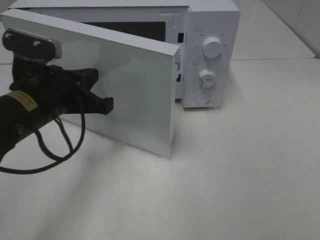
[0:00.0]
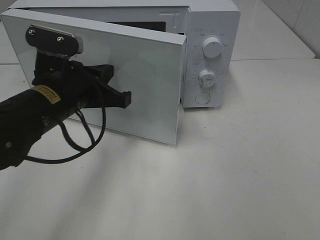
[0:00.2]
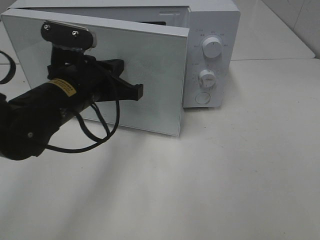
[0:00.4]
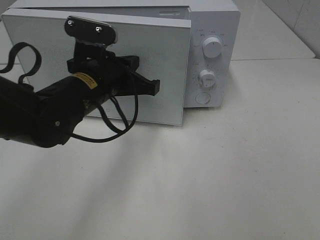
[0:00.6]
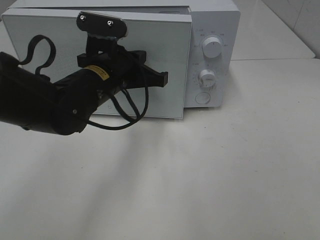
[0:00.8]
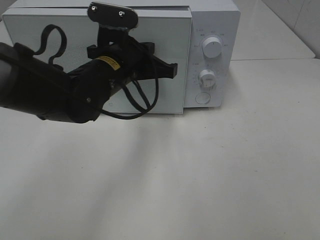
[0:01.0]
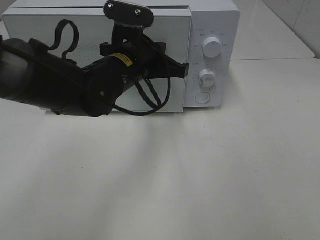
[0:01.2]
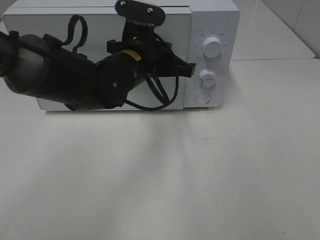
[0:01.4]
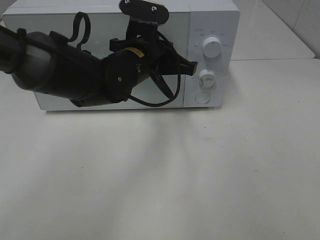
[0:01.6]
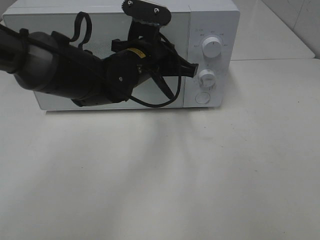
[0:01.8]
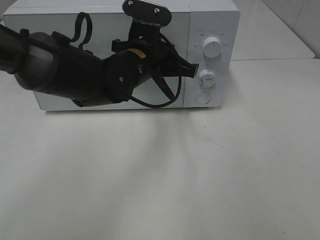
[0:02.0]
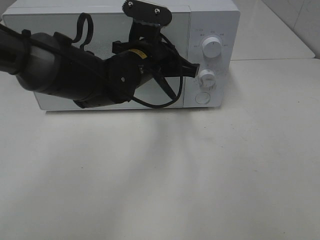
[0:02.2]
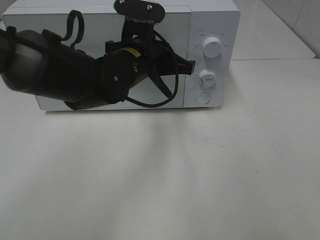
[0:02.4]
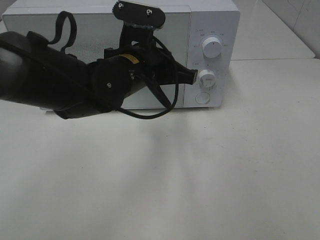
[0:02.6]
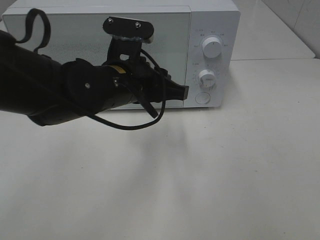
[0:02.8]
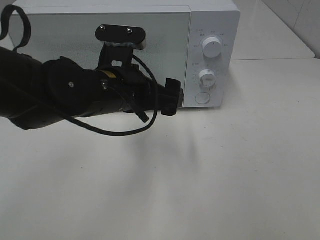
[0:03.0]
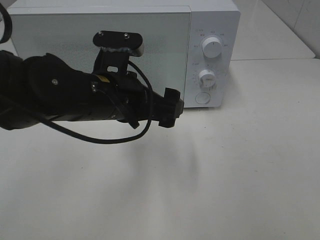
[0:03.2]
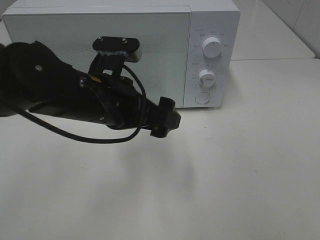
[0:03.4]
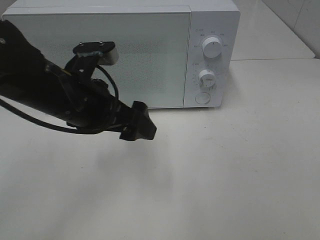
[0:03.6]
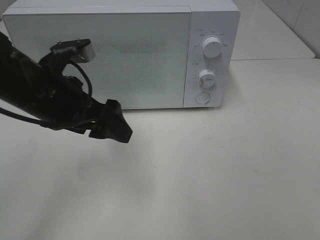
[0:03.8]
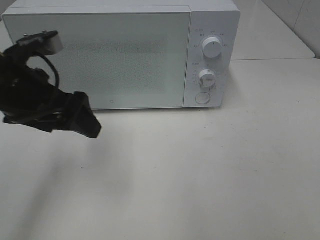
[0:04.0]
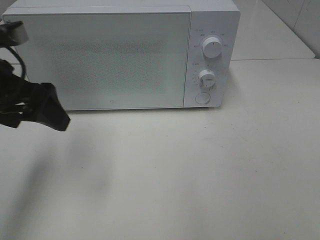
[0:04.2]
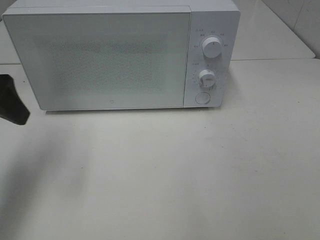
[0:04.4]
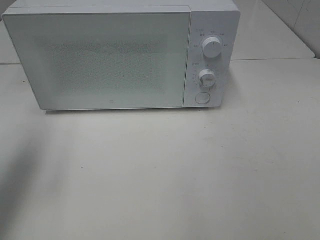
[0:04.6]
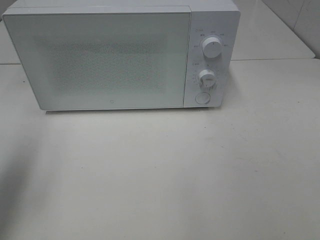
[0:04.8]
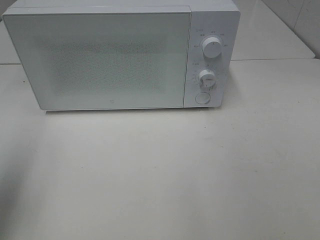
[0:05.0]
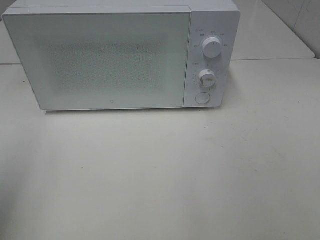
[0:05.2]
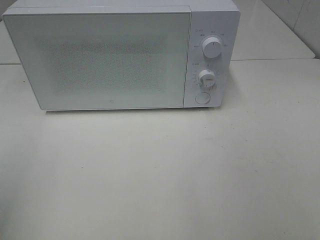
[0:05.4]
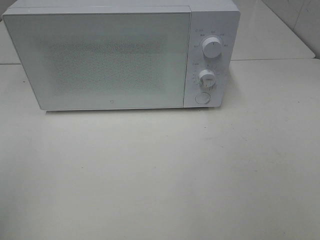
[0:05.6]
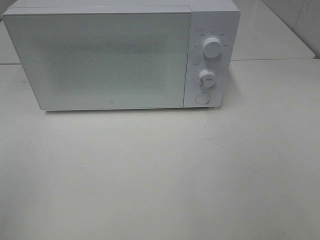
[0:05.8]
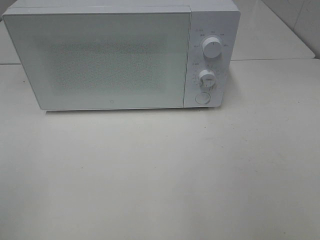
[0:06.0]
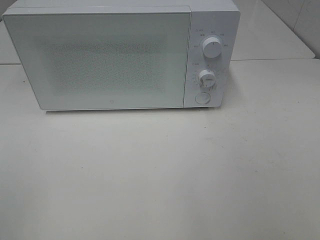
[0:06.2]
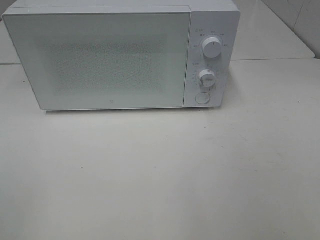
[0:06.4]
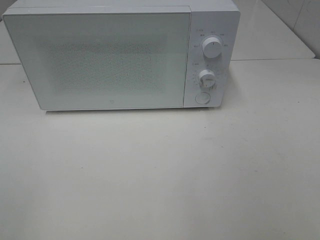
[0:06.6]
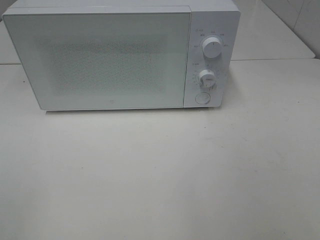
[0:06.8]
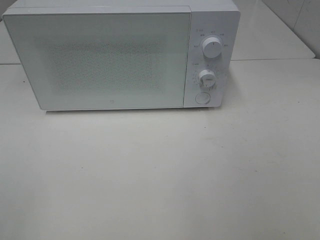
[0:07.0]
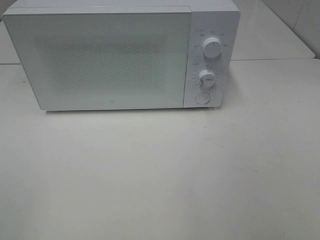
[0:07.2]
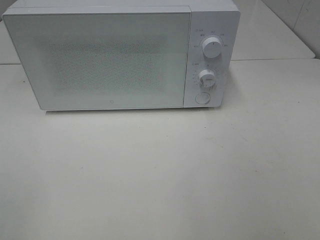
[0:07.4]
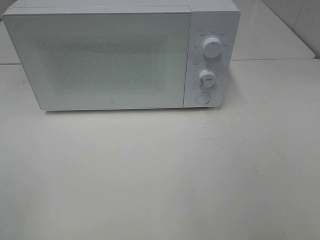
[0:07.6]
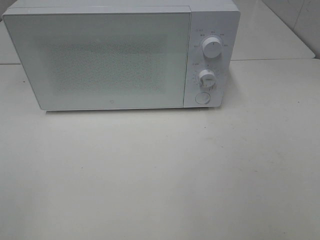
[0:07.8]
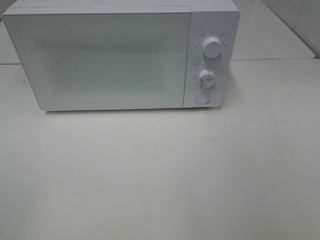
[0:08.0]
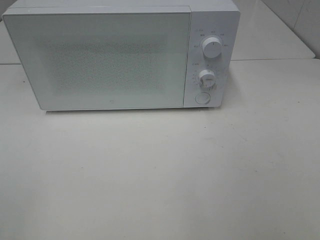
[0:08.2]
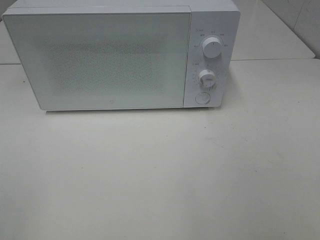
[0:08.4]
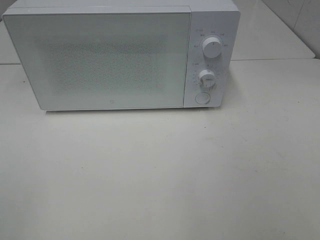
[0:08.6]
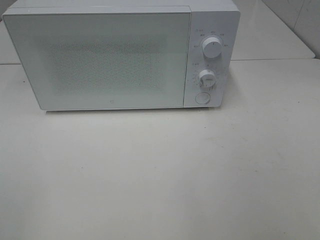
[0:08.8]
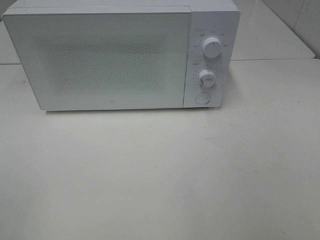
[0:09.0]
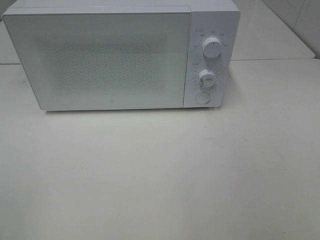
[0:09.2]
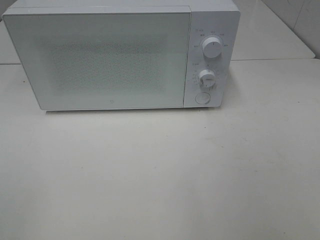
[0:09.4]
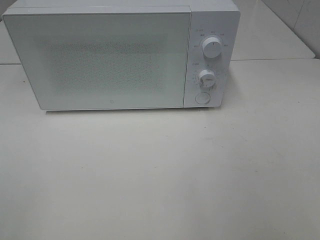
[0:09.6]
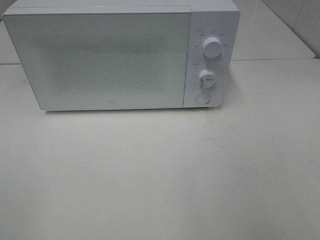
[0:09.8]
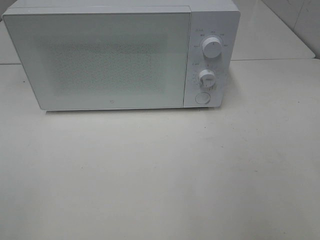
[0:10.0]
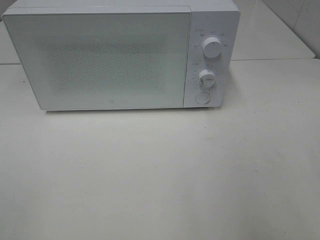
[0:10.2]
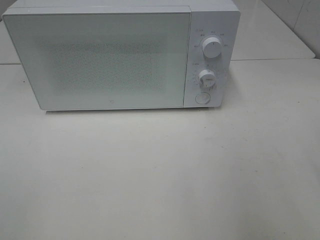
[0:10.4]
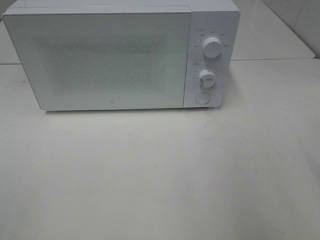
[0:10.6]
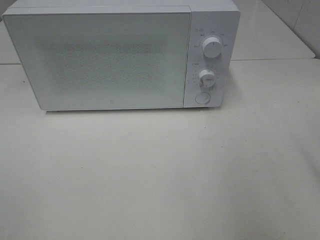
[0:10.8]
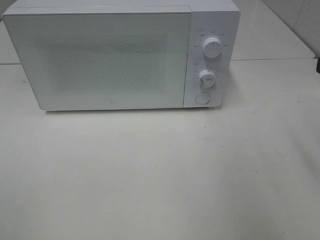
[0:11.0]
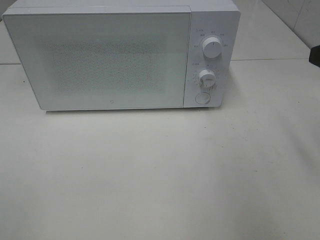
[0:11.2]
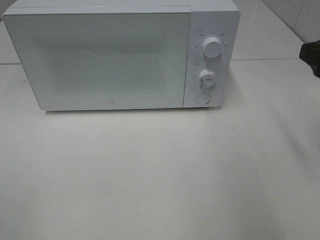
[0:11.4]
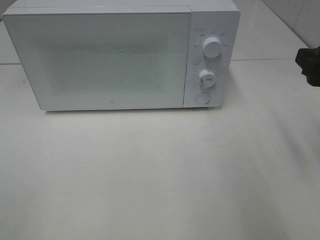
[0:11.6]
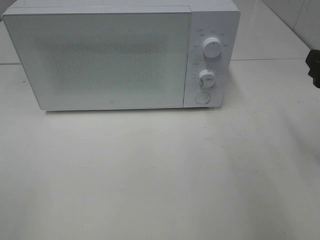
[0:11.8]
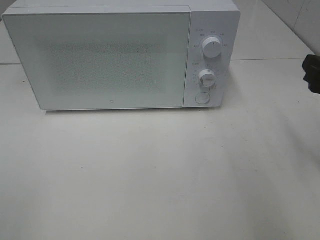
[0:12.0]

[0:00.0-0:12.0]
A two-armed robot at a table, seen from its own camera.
Task of the whole recording: Heat Sandwich.
Step, 0:00.0 to 0:03.0: Left hand: close the microwave door.
0:00.0 to 0:01.6: The left gripper is displaced to the right and forward by some 15 cm.
0:01.6 to 0:03.0: The left gripper shifts roughly 10 cm backward, and opens up.
0:03.0 to 0:04.4: The left gripper moves to the left, some 20 cm.
0:04.4 to 0:06.0: The left gripper is displaced backward by about 20 cm.
0:07.6 to 0:09.0: Both grippers stay about where they are.
0:10.4 to 0:12.0: The right gripper travels forward and downward by some 10 cm.

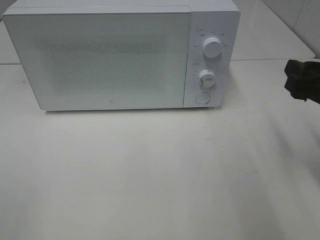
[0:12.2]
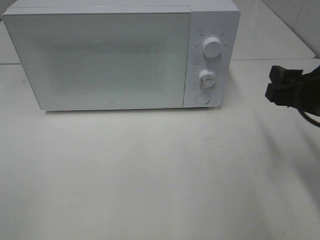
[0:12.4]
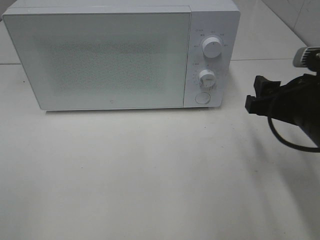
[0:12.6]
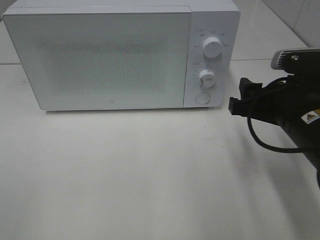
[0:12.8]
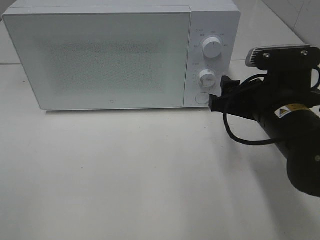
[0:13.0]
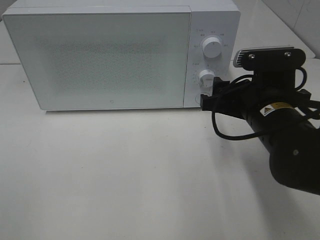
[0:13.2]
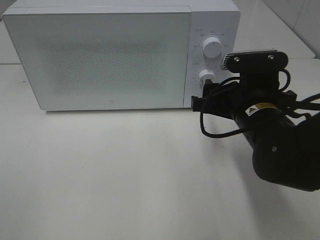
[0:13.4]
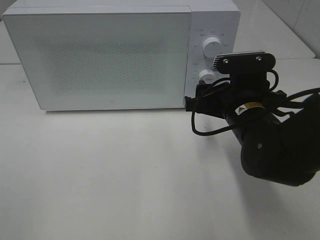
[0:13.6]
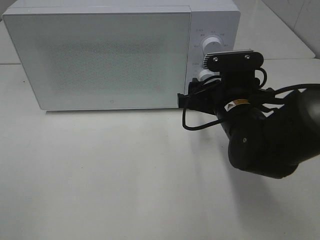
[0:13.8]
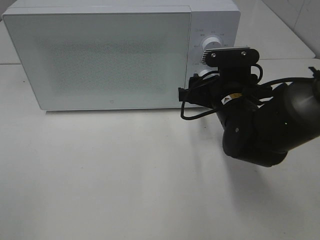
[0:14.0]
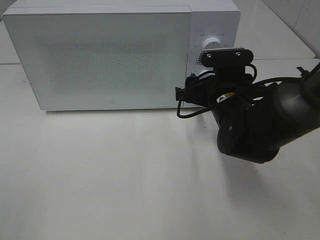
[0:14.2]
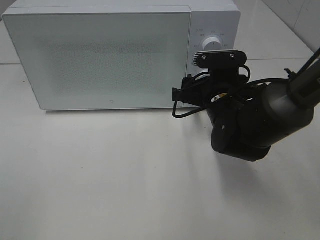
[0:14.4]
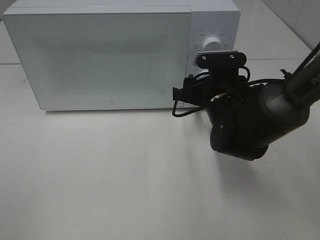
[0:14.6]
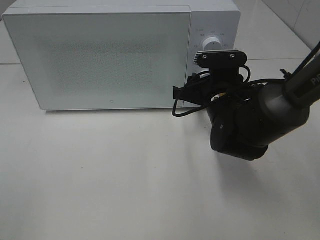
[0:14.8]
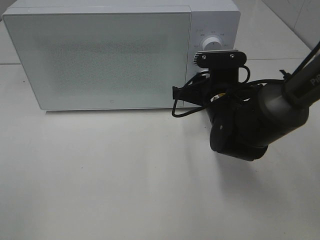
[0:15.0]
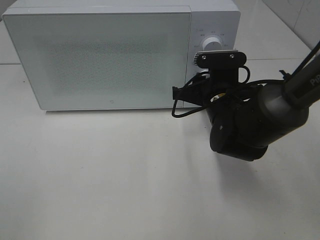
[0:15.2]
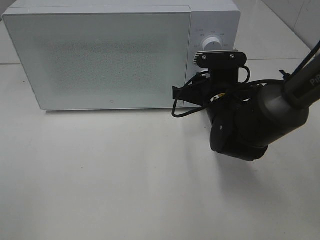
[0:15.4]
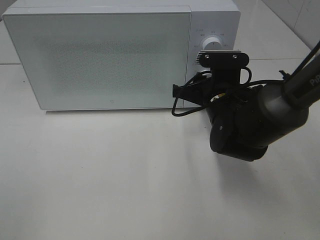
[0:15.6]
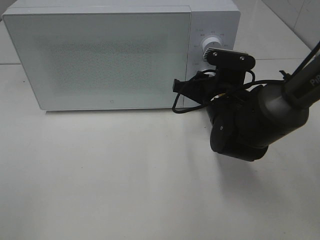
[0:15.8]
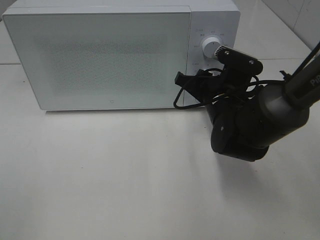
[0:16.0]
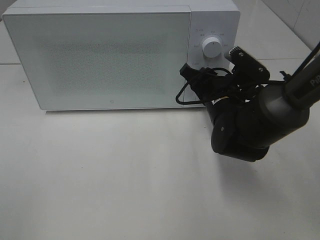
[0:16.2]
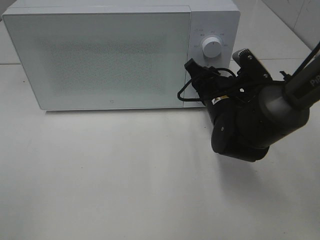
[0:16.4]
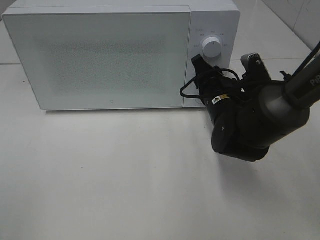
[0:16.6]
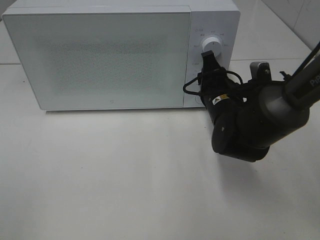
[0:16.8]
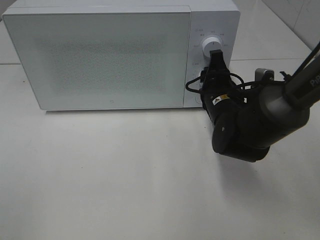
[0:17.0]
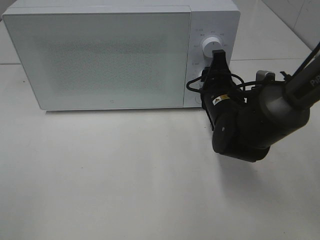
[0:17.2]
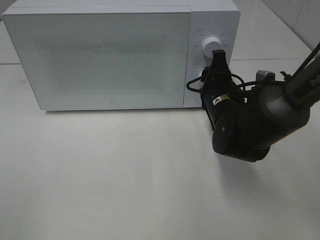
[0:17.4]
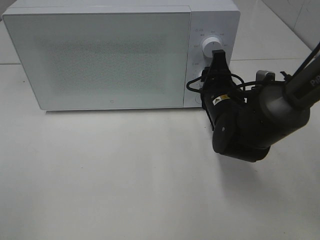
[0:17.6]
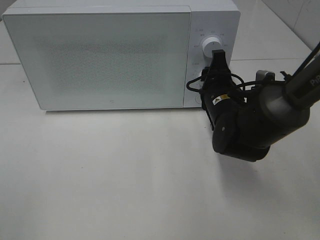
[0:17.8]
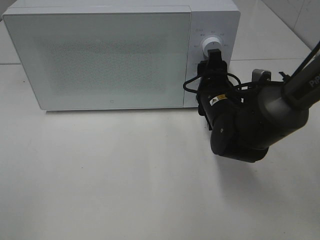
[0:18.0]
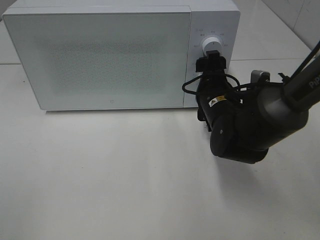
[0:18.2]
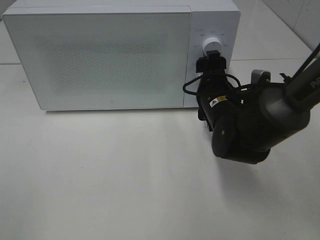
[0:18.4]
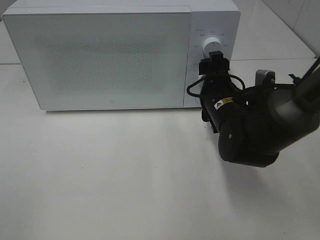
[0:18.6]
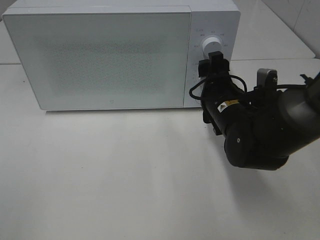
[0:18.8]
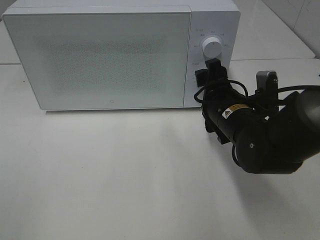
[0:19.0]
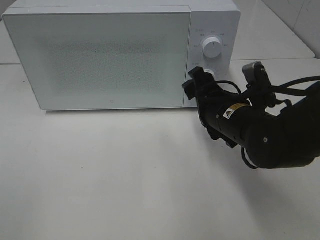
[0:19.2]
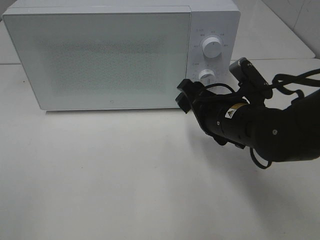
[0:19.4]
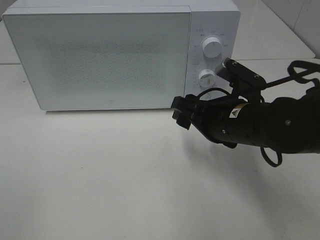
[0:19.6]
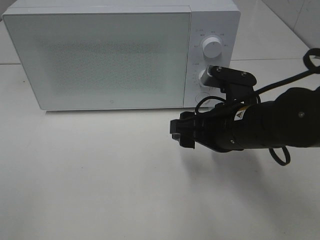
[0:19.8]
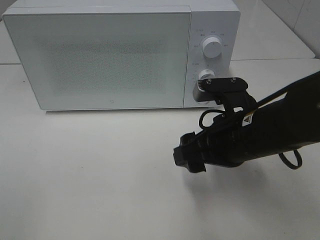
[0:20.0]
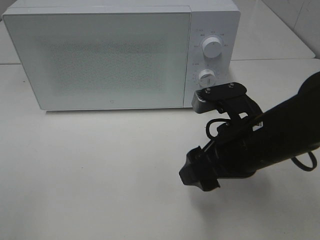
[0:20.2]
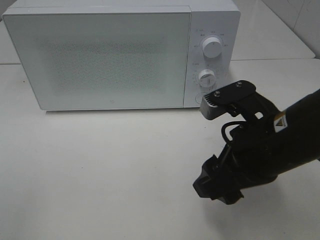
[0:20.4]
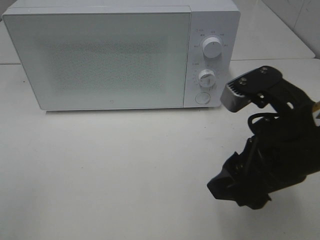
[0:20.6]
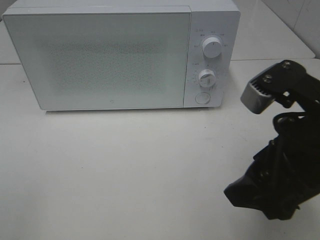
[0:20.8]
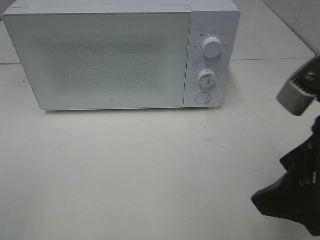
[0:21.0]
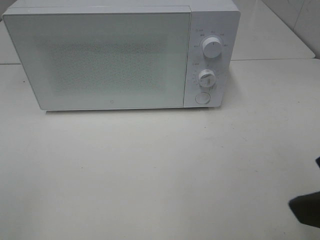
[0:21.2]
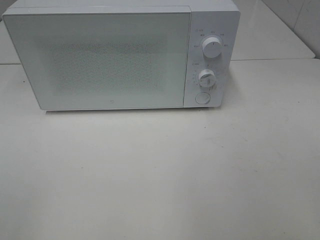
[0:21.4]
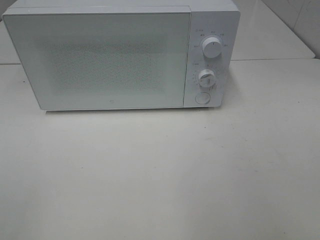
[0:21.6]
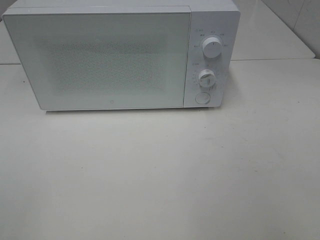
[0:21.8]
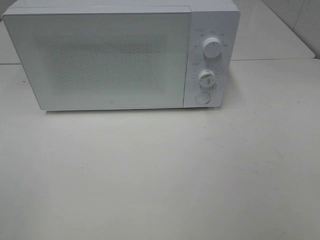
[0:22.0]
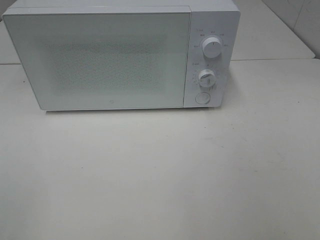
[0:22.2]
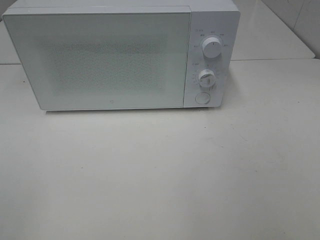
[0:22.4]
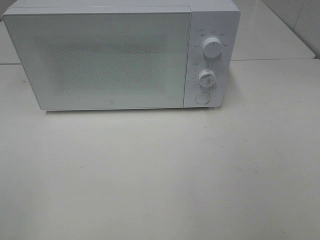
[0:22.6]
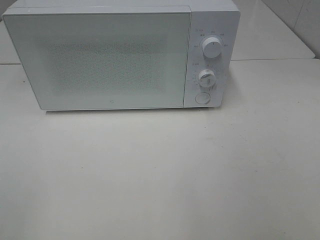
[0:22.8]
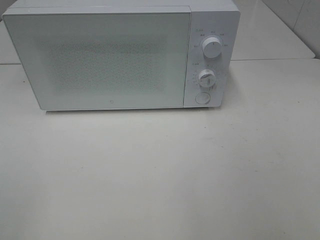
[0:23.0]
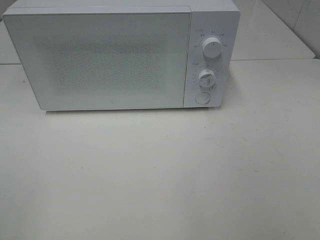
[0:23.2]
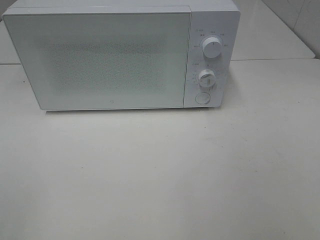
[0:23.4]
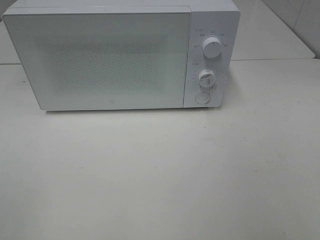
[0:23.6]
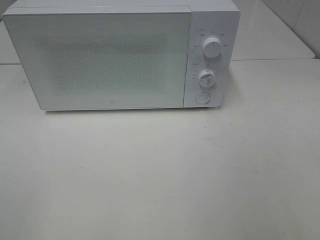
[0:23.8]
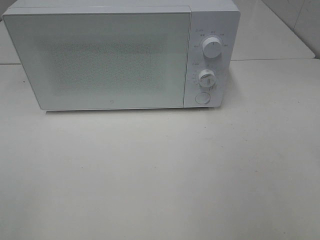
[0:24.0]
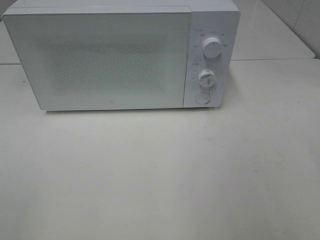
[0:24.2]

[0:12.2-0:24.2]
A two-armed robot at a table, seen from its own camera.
Task of the whole recording: Heat Sandwich.
Step, 0:12.2 to 0:19.4: Right hand: twist timer button.
0:12.2 to 0:13.8: The right gripper travels to the left, forward and downward by some 15 cm.
0:13.8 to 0:15.2: The right gripper closes its fingers.
0:16.6 to 0:18.2: The right gripper opens its fingers.
0:18.2 to 0:19.8: The right gripper is displaced backward by some 10 cm.
0:19.8 to 0:21.2: The right gripper travels backward, upward and to the right by some 20 cm.
0:21.2 to 0:22.6: The right gripper heads backward and to the right, covering approximately 10 cm.
